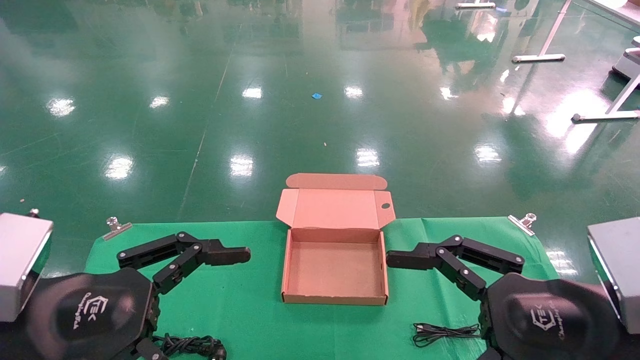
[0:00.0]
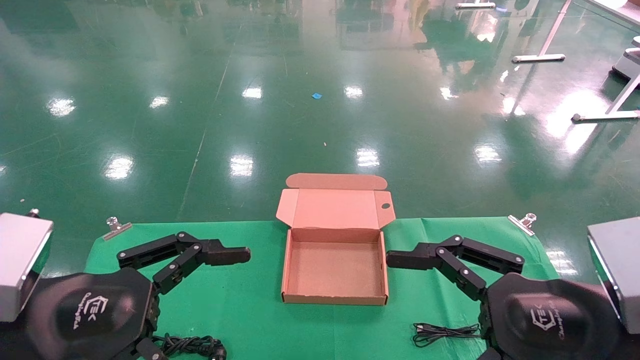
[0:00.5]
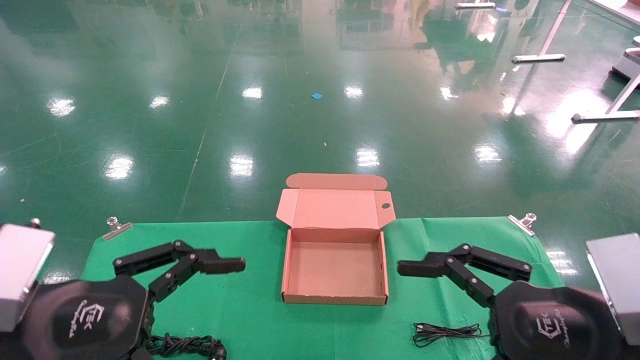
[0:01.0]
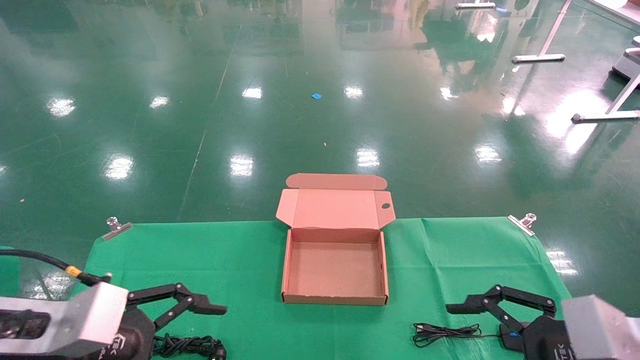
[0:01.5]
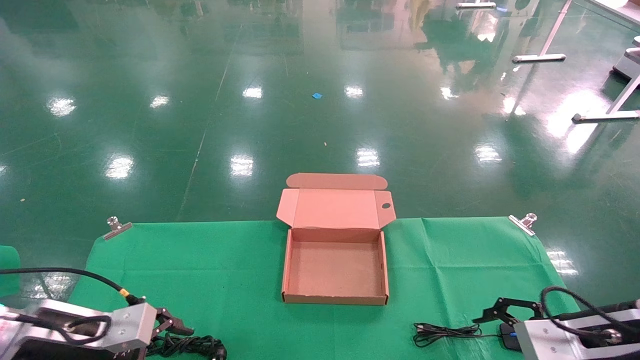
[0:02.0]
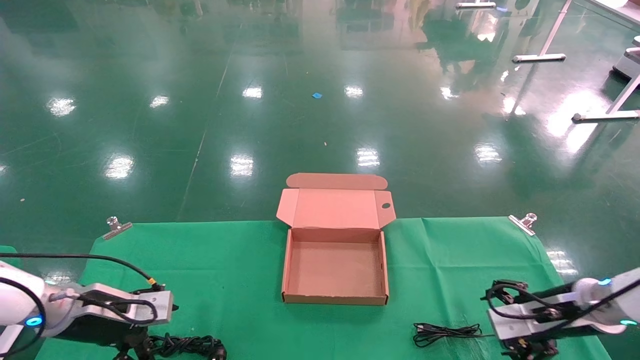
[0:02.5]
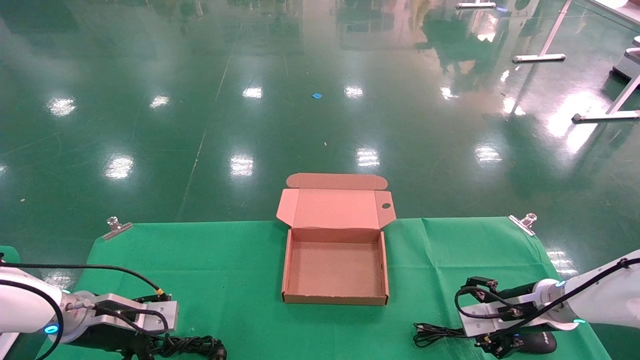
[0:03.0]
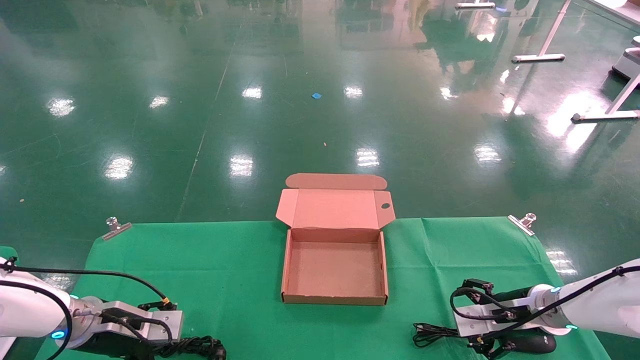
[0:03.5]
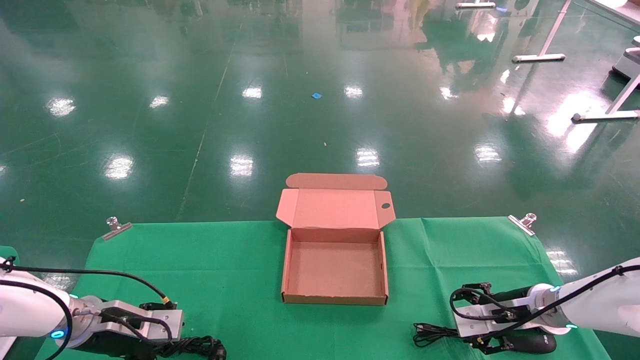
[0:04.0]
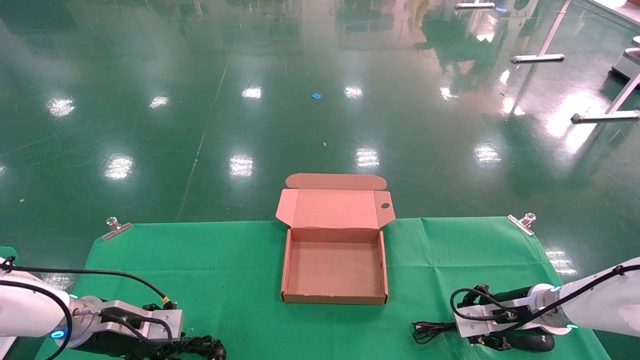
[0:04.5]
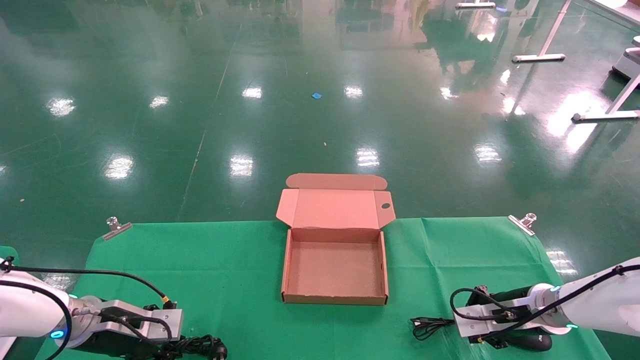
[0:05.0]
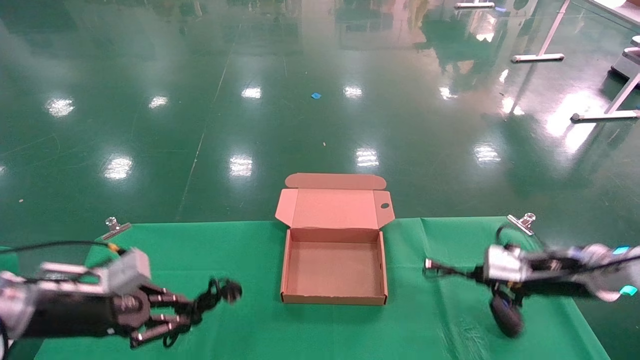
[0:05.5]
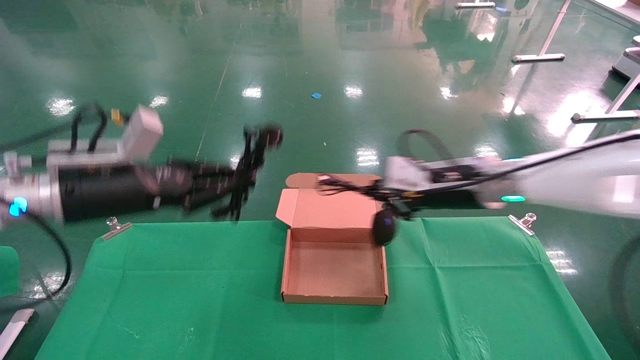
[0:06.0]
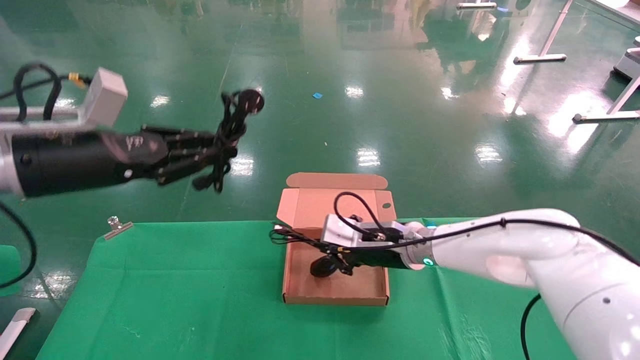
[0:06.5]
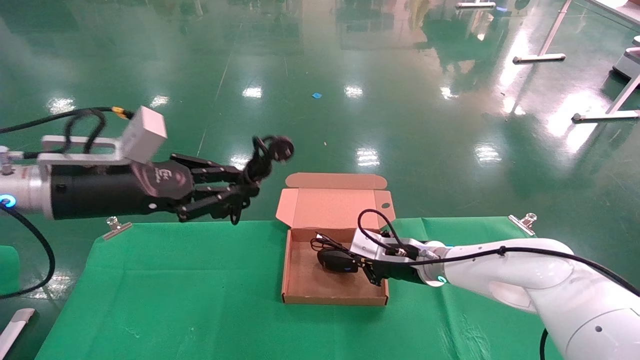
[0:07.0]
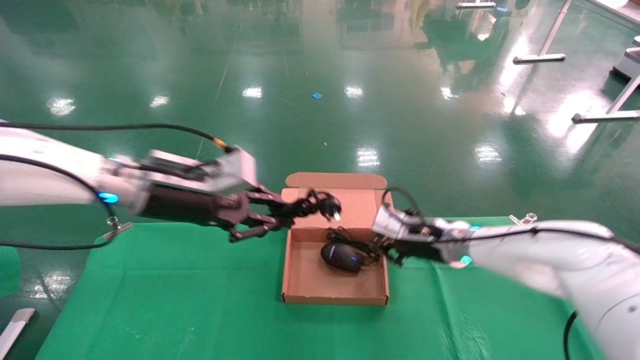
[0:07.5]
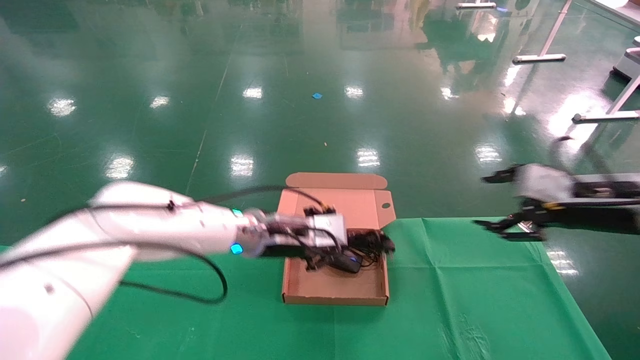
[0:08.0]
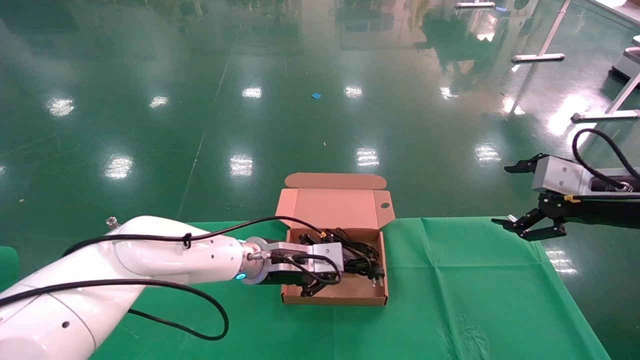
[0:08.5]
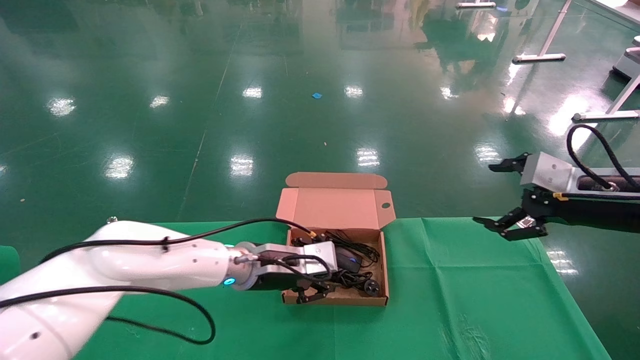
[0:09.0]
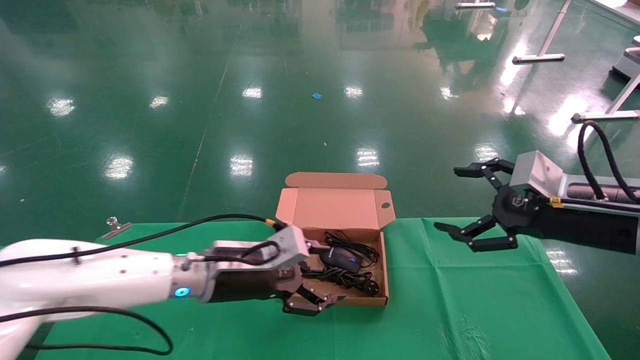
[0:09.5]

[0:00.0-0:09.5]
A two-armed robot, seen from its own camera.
Step, 0:01.5 to 0:04.5: Grab and lift both the mouse and power cord from the accessory packaging area at the same time.
Step, 0:05.0 to 0:08.5: Place the mouse and power cord into the box.
0:00.0 to 0:02.0: The left gripper shifts about 20 cm forward, downward and to the left. Meanwhile the right gripper heads forward, to the right and downward, covering about 20 cm.
0:02.0 to 0:04.0: The grippers both shift forward and downward by approximately 10 cm.
0:04.0 to 0:05.5: The grippers both shift upward by some 10 cm. The left gripper closes up. The right gripper closes its fingers.
0:05.5 to 0:07.5: The right gripper moves to the left and forward, approximately 15 cm, while the left gripper is displaced to the right and upward by approximately 20 cm.
0:07.5 to 0:09.5: The right gripper goes some 20 cm backward, to the right and upward, and opens its fingers. The left gripper moves downward and to the right, roughly 15 cm, and opens.

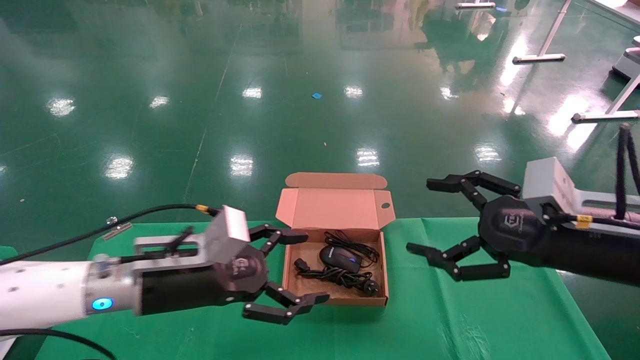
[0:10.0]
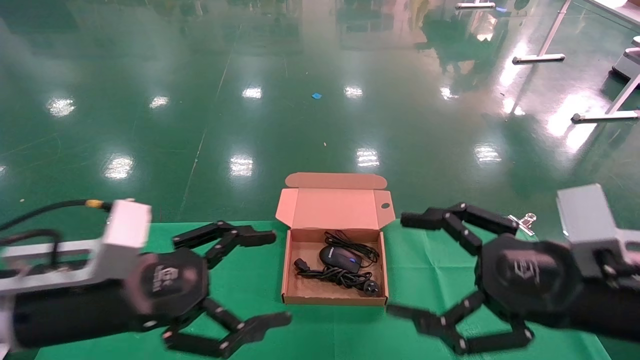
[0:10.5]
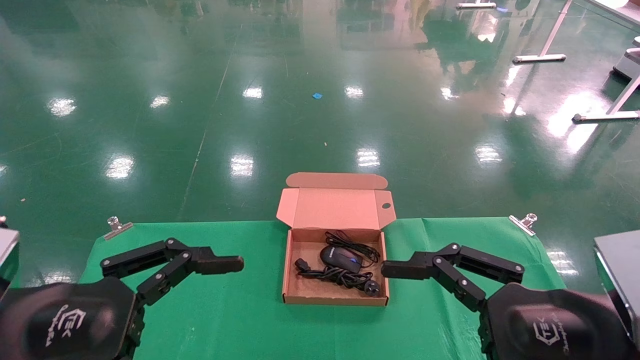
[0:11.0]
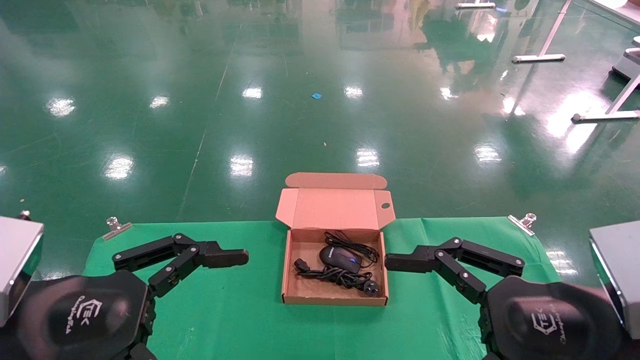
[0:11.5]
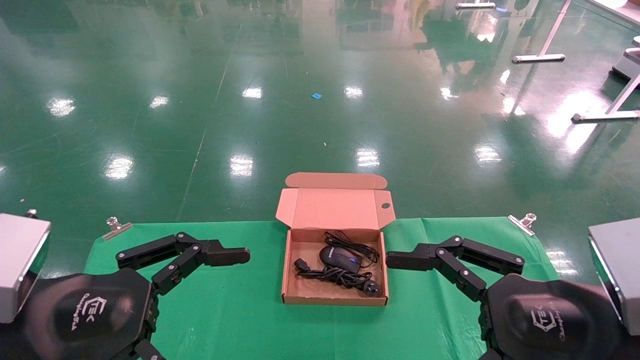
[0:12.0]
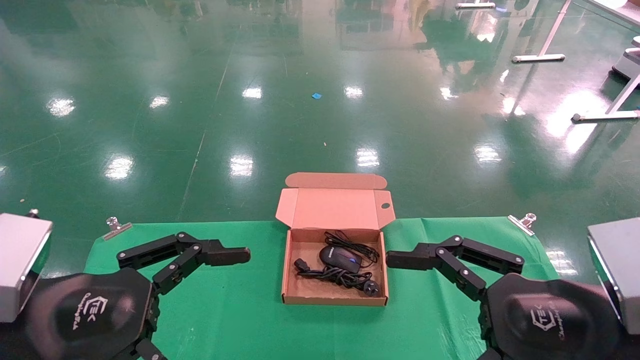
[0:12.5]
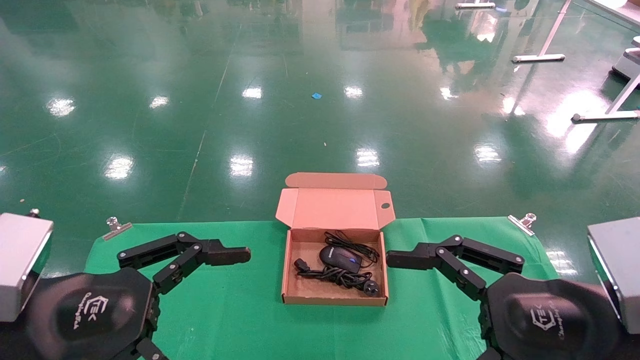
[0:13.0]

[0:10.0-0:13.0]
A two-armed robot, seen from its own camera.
0:10.0 to 0:11.5: The right gripper goes some 10 cm backward. The left gripper goes roughly 15 cm backward and to the left.
0:11.5 to 0:13.0: Neither gripper changes place.
